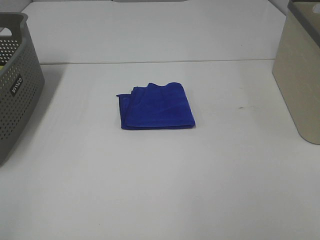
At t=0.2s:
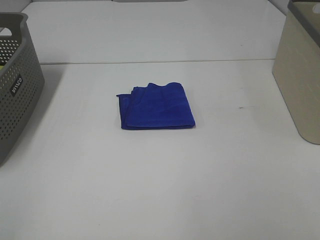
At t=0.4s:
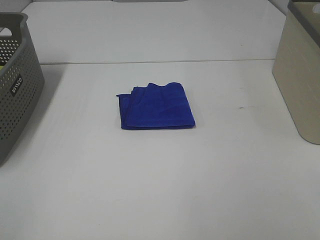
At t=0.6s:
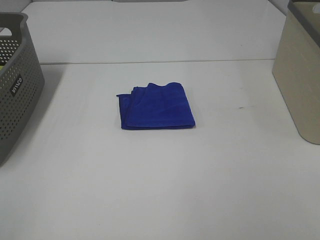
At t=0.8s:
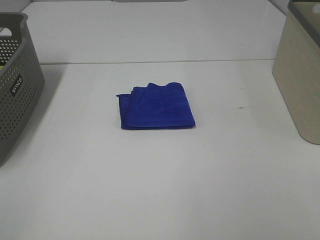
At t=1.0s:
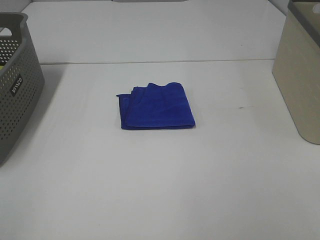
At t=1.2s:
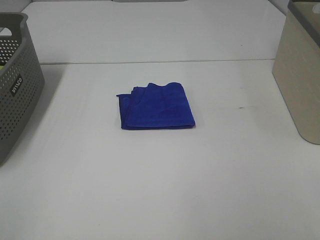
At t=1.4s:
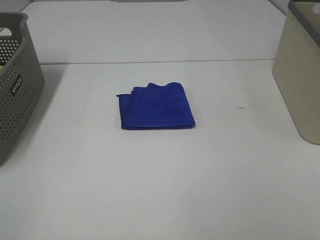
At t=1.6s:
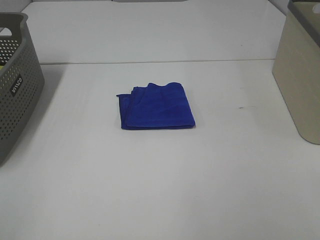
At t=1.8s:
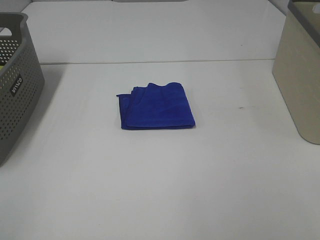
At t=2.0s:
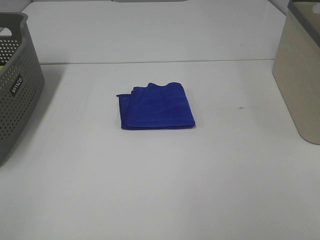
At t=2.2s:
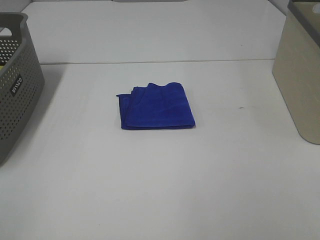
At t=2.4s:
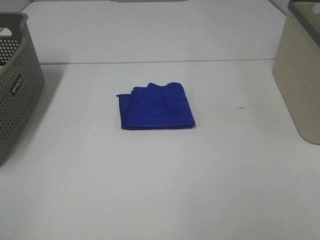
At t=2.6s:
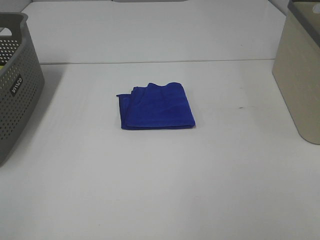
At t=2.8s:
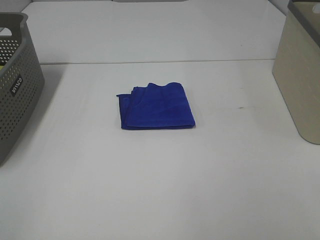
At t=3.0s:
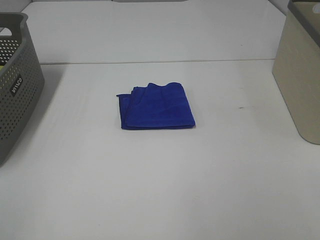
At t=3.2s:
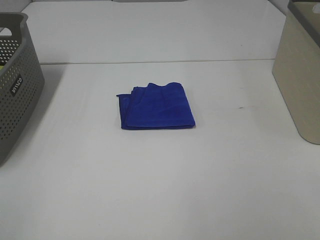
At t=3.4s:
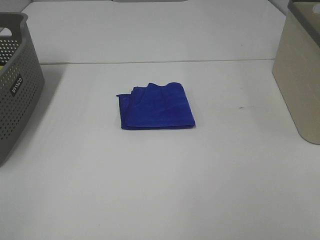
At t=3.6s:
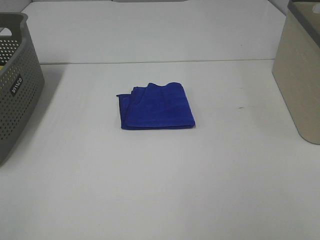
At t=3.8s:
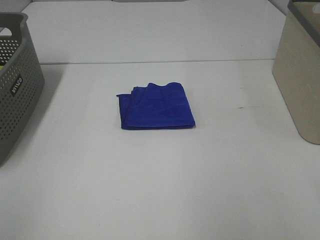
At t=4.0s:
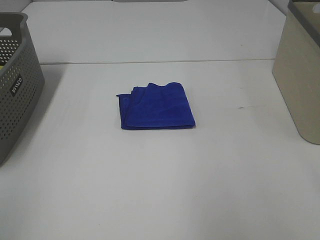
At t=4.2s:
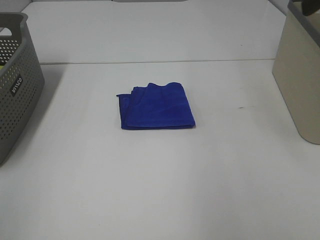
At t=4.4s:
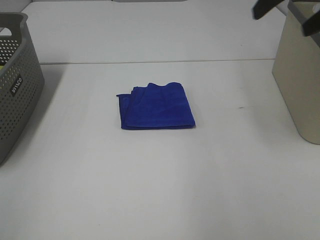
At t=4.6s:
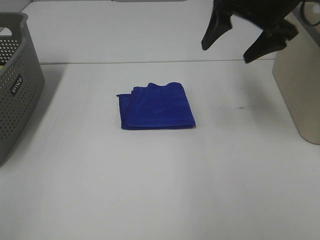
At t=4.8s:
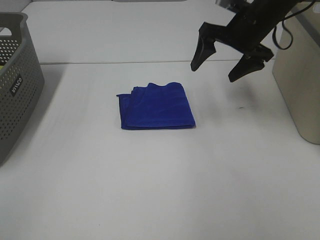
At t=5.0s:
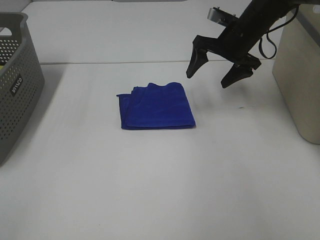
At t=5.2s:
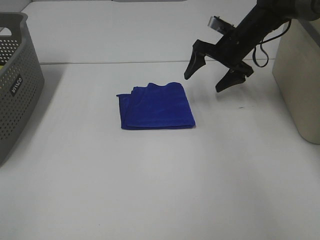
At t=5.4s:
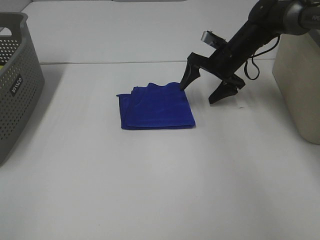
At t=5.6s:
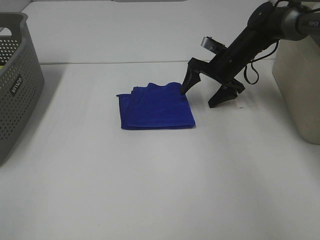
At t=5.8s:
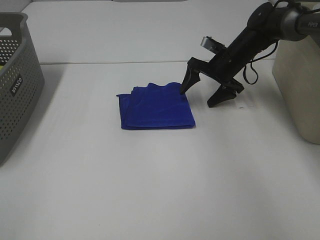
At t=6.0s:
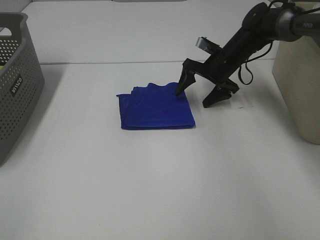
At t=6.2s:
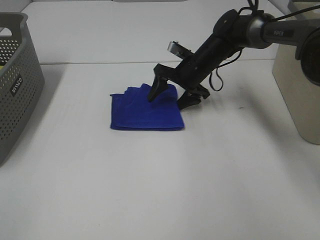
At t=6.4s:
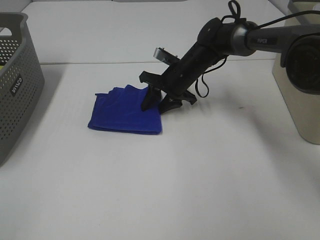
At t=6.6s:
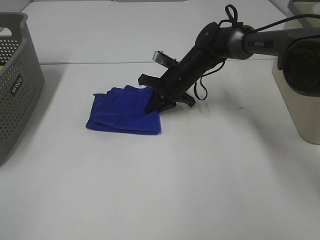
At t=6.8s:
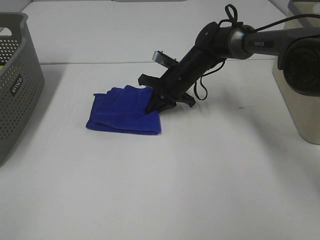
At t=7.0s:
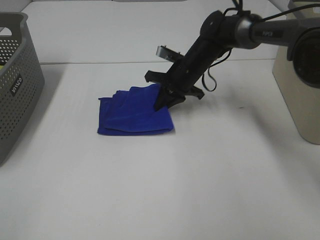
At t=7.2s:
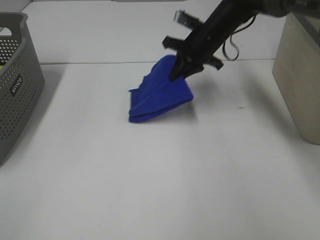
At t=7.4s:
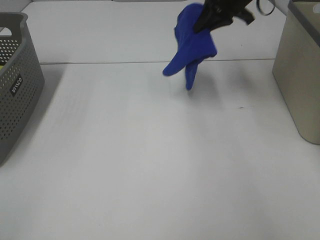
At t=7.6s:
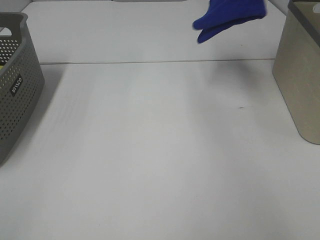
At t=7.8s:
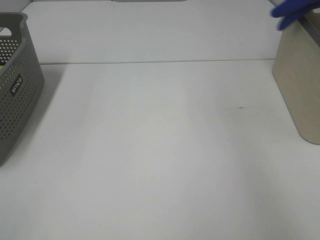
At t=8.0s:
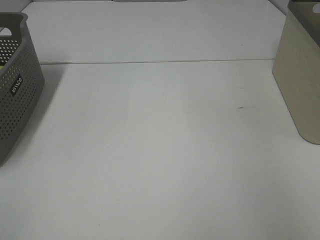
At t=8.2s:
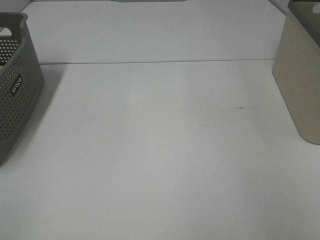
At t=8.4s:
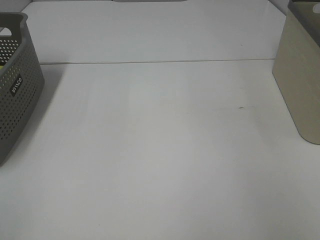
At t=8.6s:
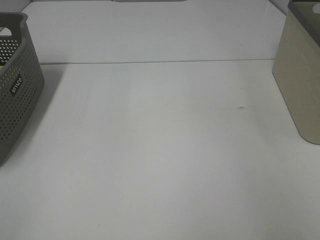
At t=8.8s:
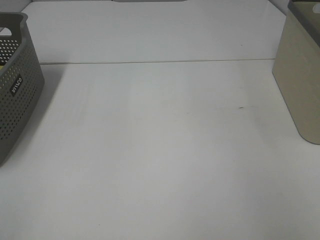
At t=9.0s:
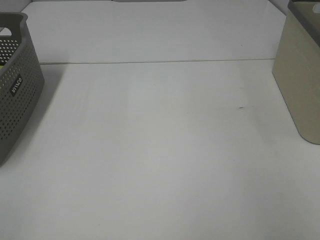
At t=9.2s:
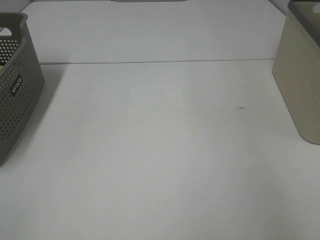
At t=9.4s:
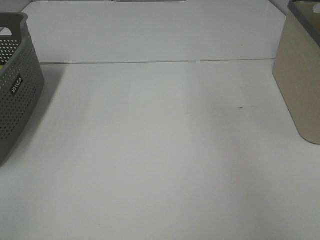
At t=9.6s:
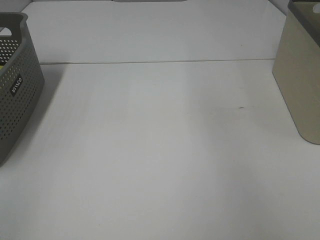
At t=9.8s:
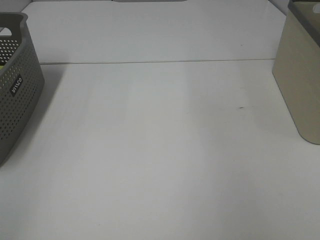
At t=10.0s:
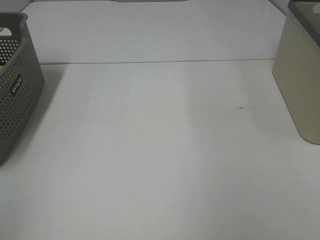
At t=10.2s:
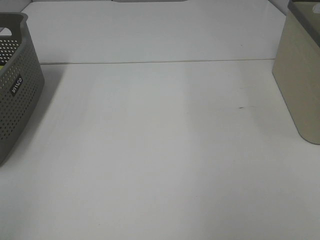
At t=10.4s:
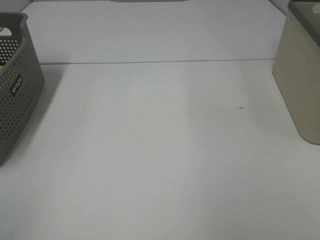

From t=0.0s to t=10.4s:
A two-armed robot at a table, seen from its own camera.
Step, from t=0.0s to t=6.6s: Right hand: grab the folded blue towel.
Step, from t=6.8s to t=9.0s: Right hand: place the blue towel in right basket.
From t=0.0s to t=3.0s: Both grippers stay about where they are.
From t=3.0s to t=4.4s: The right gripper is displaced forward by about 35 cm.
From t=4.4s to t=6.0s: The right gripper heads downward and forward, covering roughly 30 cm.
From t=6.0s to t=7.4s: The right gripper shifts approximately 20 cm upward, and closes up.
From t=7.4s to t=9.0s: The right gripper shifts about 30 cm to the right, and opens up.

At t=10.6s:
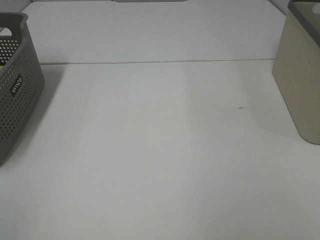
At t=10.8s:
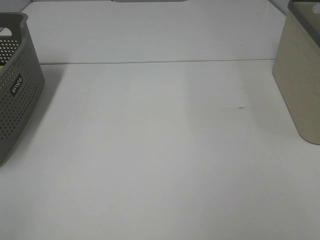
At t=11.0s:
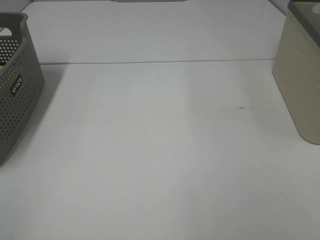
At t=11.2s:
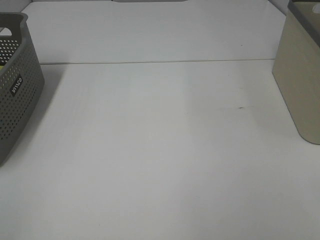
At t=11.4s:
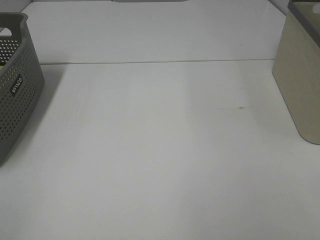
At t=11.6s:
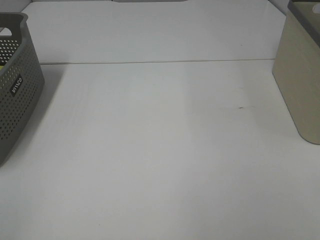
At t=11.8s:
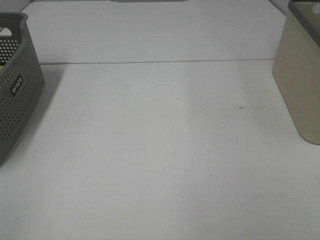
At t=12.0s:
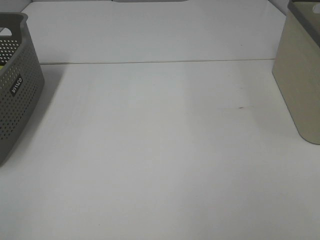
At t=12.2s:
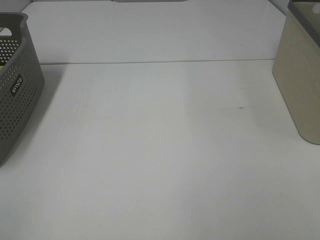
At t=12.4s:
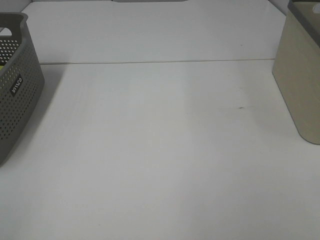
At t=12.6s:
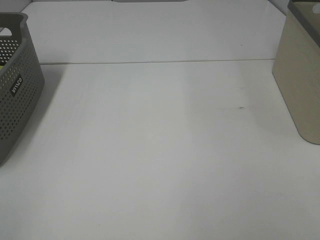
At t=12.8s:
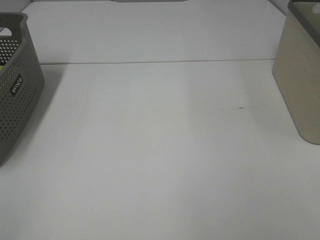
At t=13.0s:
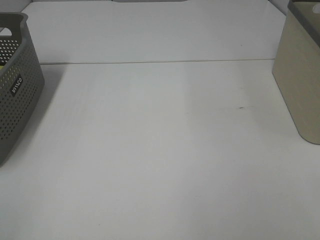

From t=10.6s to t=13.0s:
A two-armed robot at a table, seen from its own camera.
From t=11.8s to t=13.0s: Both grippers stay about where they are.

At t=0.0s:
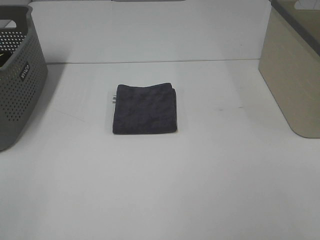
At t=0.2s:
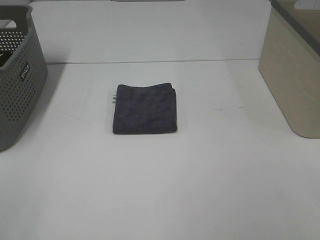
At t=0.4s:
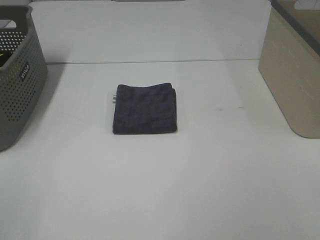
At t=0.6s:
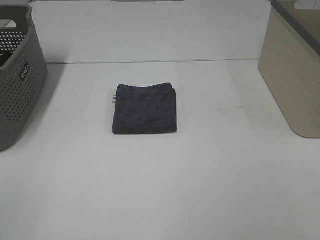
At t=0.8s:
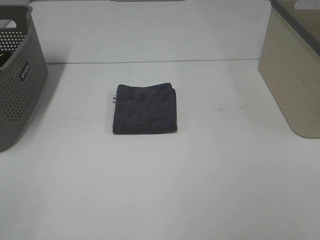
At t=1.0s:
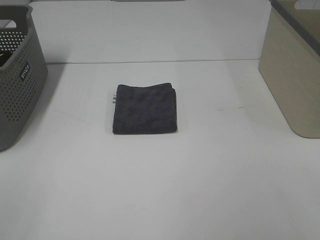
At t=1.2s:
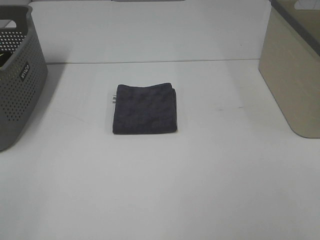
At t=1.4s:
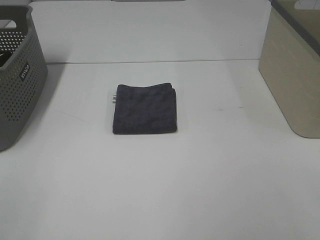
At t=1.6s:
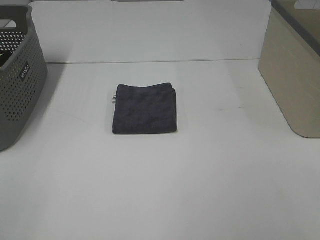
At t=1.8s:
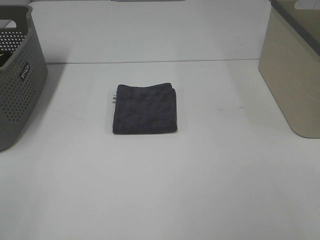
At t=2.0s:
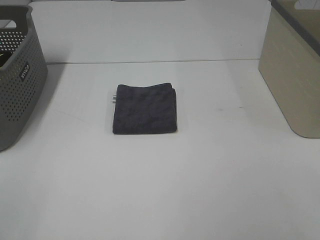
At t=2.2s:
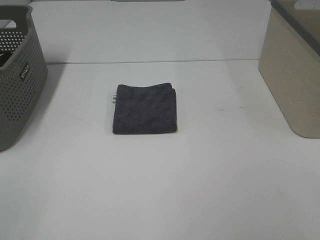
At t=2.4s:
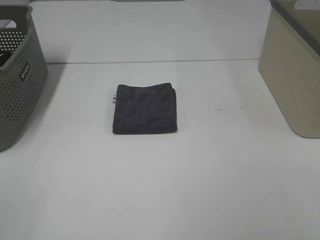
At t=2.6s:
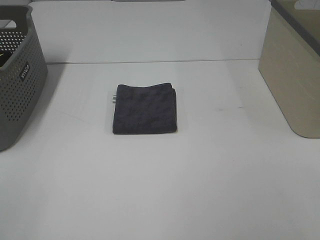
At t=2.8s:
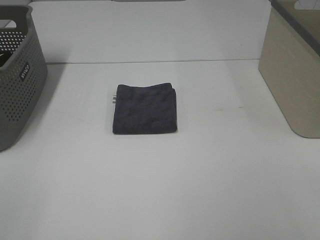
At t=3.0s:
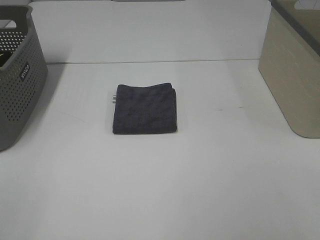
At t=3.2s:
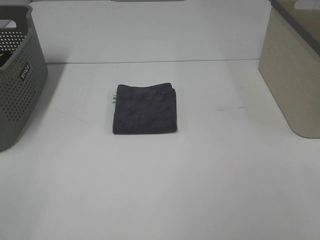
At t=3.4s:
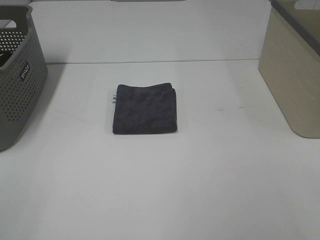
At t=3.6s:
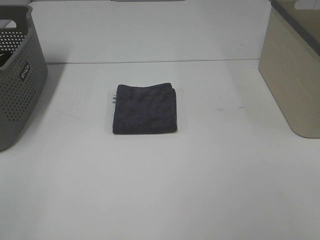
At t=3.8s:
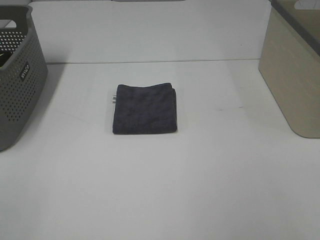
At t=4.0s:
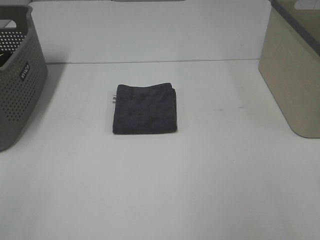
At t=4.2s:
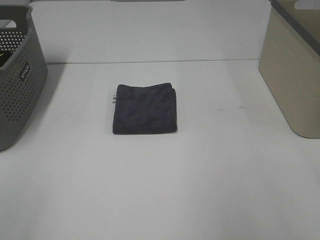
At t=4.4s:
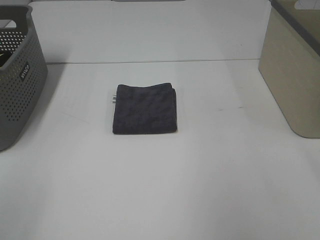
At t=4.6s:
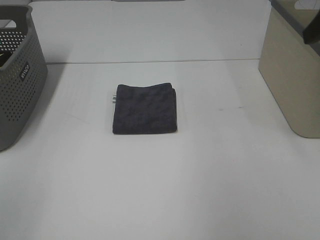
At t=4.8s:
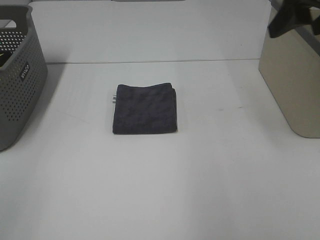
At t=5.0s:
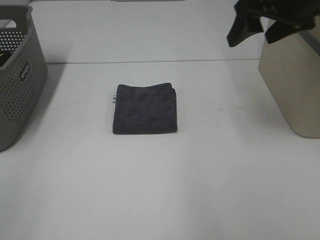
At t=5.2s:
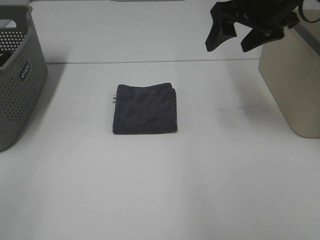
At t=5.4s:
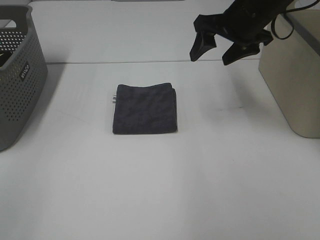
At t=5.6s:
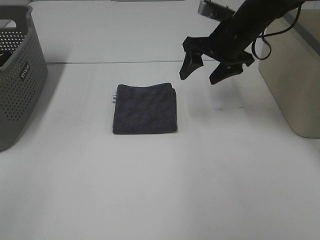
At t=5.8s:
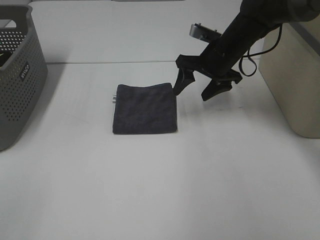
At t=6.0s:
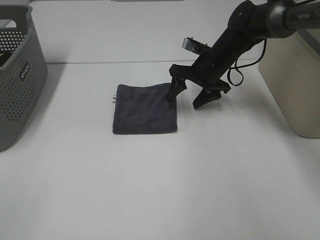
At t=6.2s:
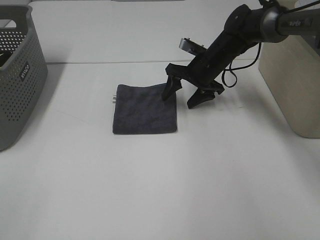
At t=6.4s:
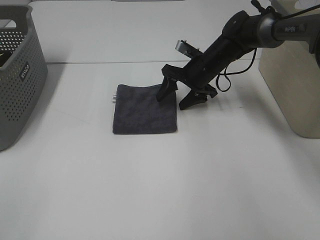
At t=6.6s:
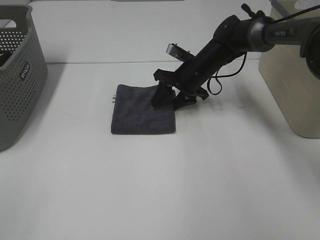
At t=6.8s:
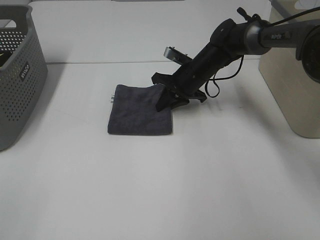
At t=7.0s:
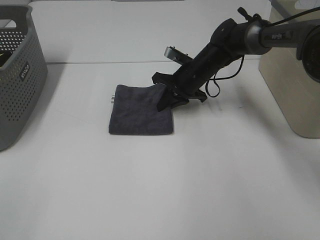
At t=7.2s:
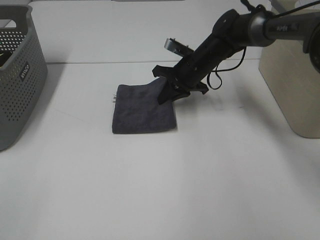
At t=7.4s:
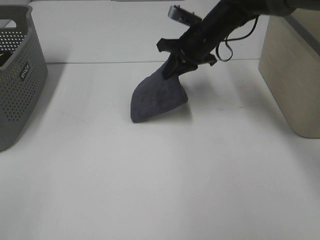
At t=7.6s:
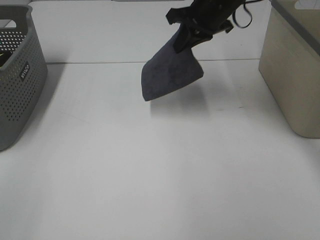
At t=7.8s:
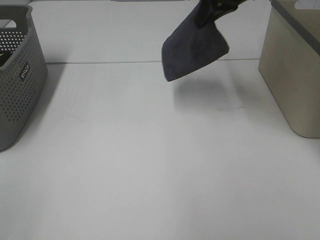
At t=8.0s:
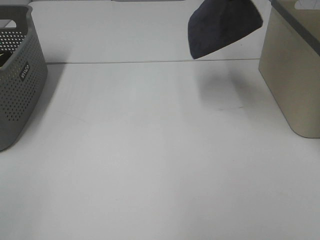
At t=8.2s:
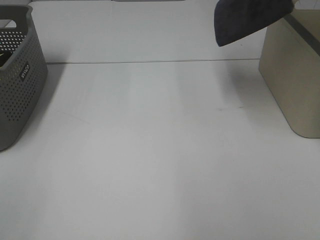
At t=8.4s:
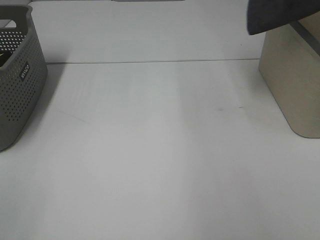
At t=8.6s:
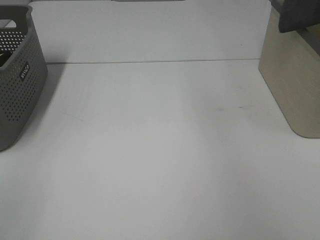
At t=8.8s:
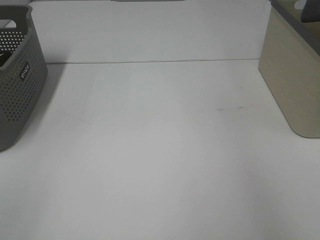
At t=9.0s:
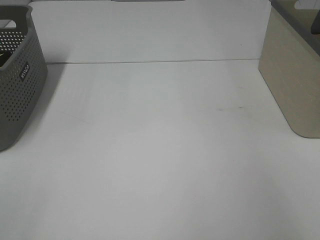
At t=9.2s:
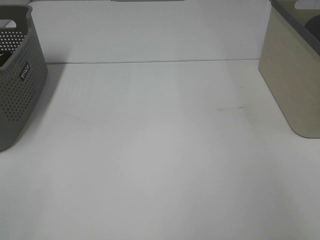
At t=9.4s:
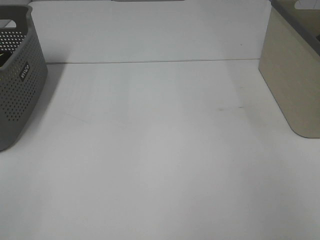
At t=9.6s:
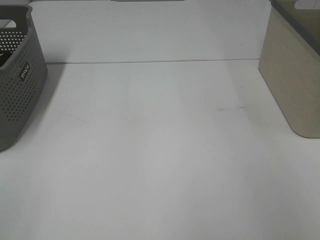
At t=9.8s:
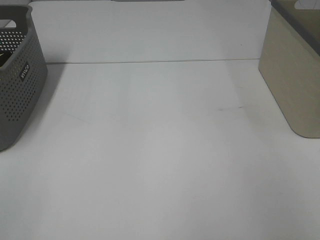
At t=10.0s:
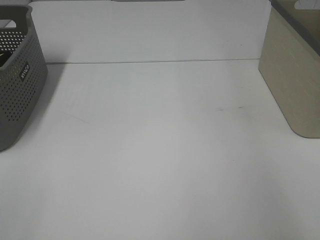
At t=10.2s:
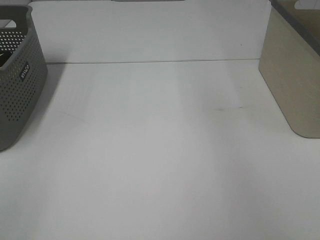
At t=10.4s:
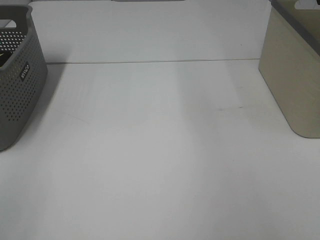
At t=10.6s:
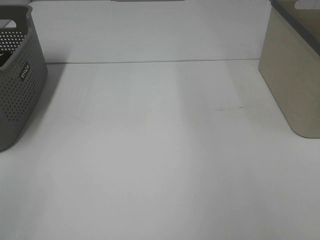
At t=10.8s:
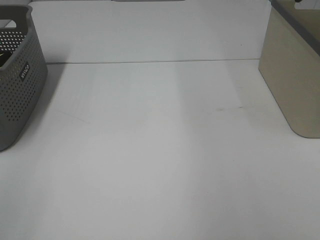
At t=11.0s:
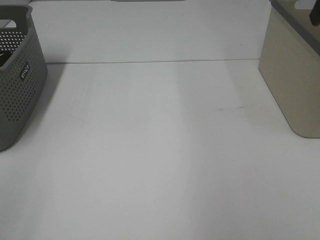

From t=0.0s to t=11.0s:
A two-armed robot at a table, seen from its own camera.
Step, from t=0.0s to t=6.8s: Right hand: grab the folded grey towel.
Step, from t=7.0s to t=9.6s: Right hand: place the grey towel in right basket.
From t=0.0s to t=3.2s: Both grippers stay about where they are.
From t=3.2s to t=4.8s: The right gripper is displaced forward by some 30 cm.
From t=4.8s to t=6.2s: The right gripper is displaced downward, forward and to the left by approximately 30 cm.
From t=6.2s to t=7.8s: The right gripper goes roughly 20 cm upward, and closes its fingers.
From t=7.8s to t=9.4s: The right gripper moves to the right, approximately 30 cm.
